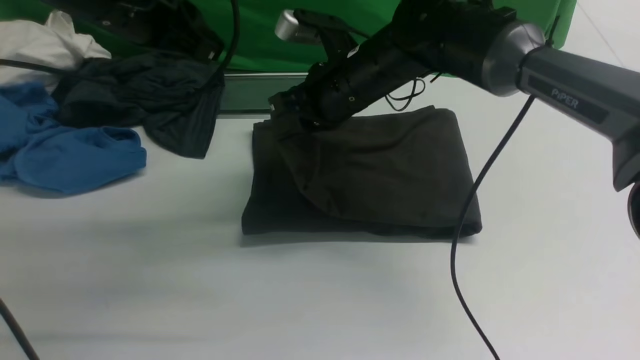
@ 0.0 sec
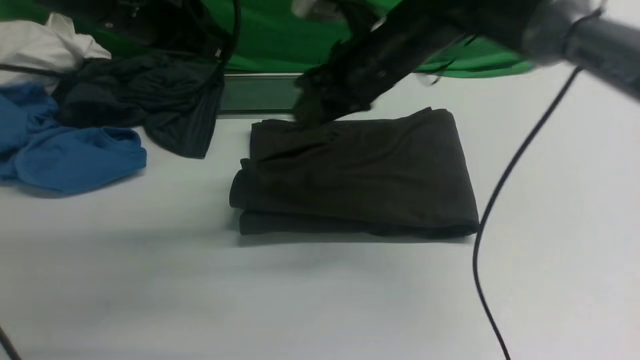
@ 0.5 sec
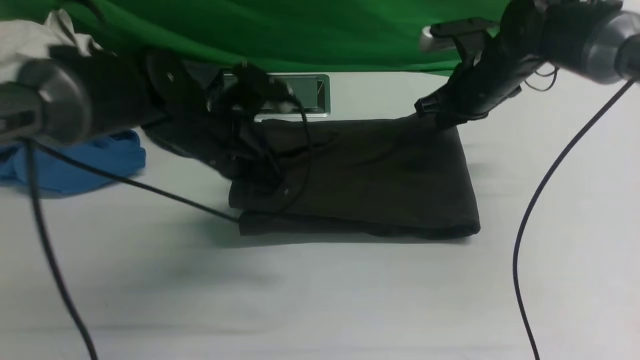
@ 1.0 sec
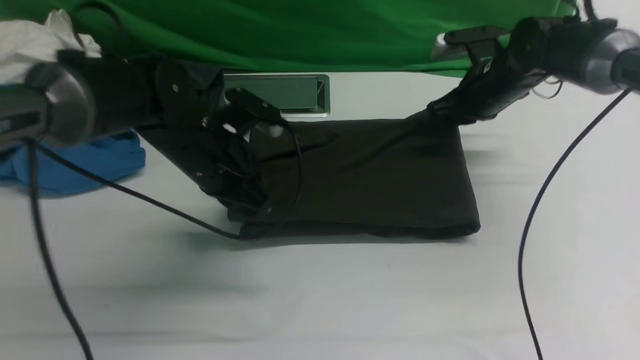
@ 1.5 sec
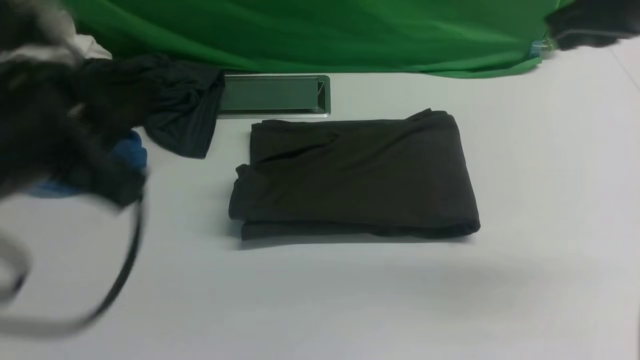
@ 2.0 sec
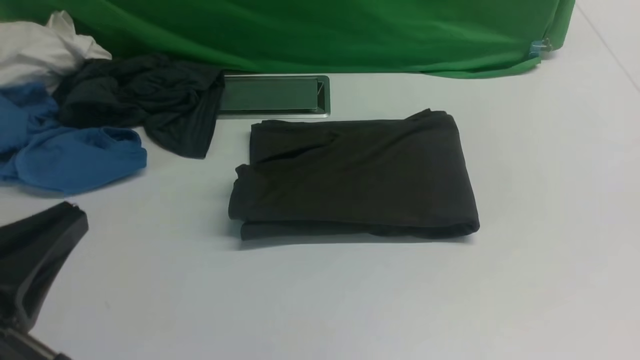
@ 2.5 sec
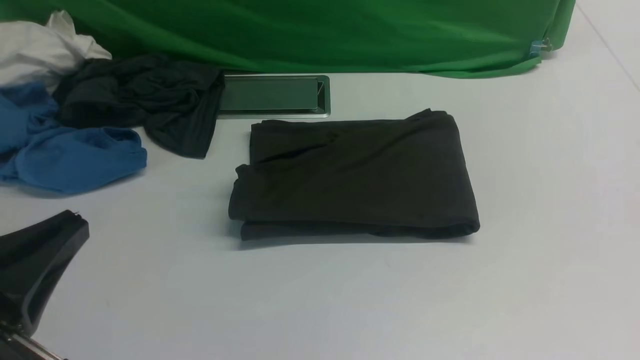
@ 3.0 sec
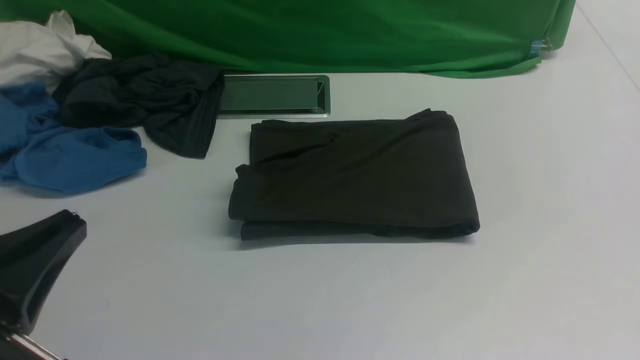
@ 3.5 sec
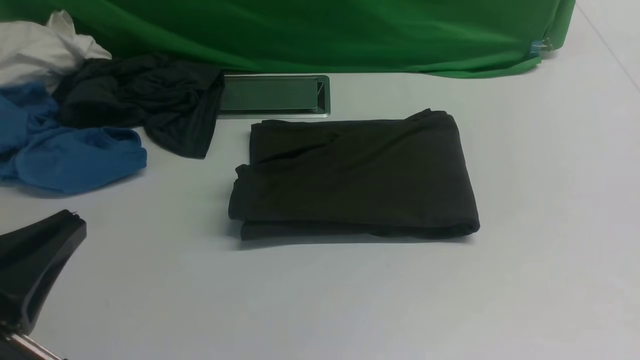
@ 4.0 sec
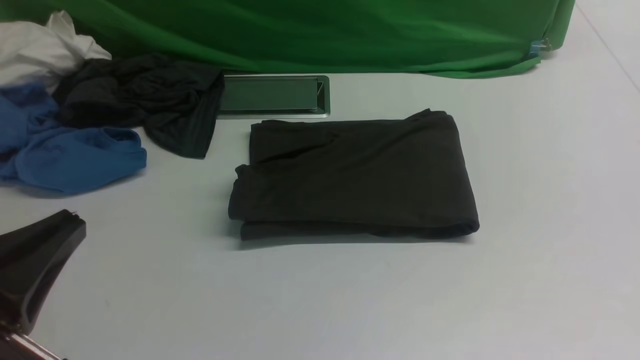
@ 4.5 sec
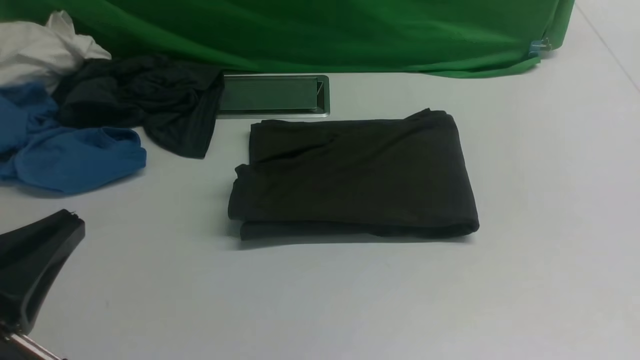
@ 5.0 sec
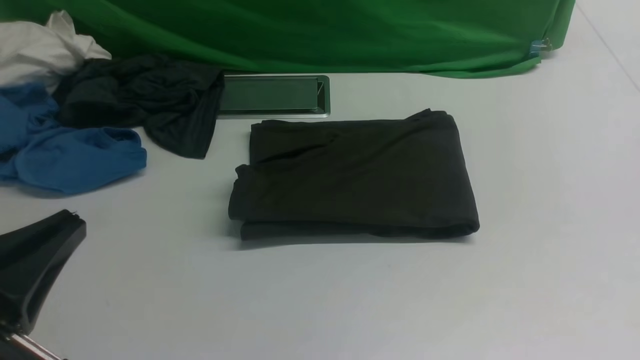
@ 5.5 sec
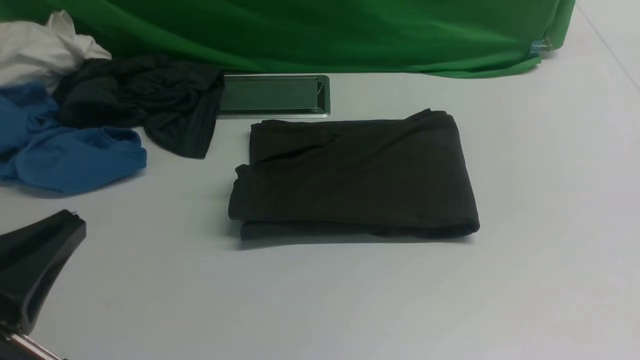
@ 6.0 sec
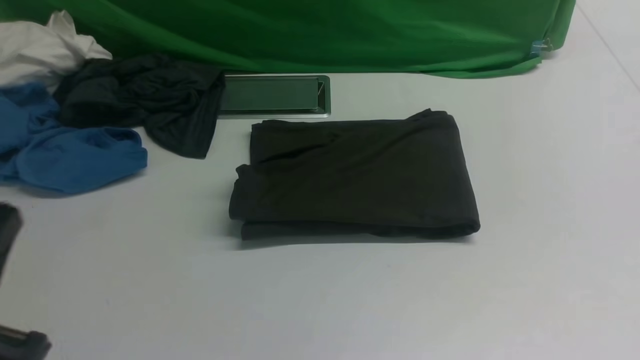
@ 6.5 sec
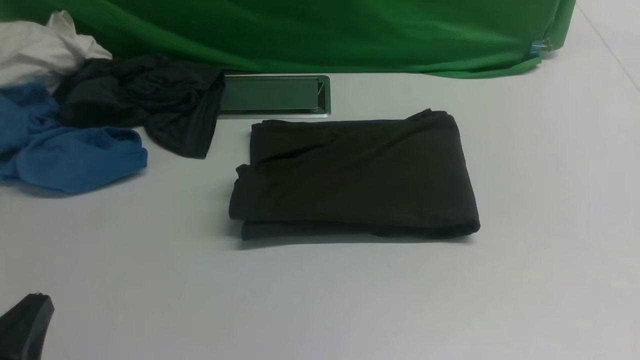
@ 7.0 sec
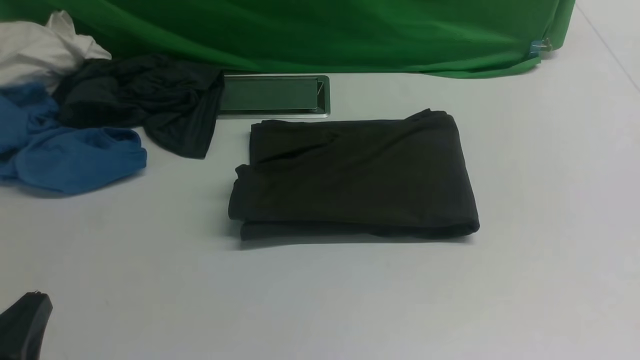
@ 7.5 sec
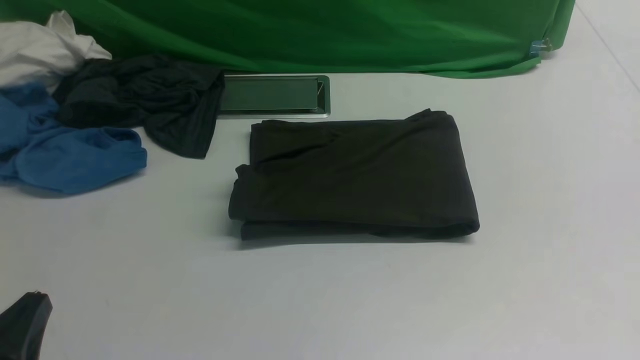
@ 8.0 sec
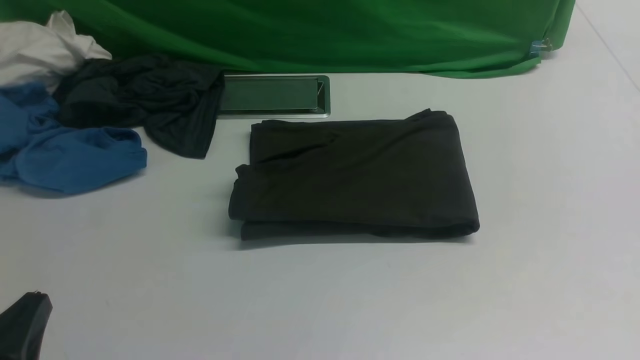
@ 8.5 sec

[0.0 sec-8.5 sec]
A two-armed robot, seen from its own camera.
0.0 sec to 2.0 sec: The right gripper travels to the right, upward and backward by about 30 cm, and closes its fingers, while the left gripper travels backward by roughly 20 cm.
2.0 sec to 4.0 sec: The right gripper heads backward, covering about 25 cm. The left gripper is displaced backward and downward by some 10 cm.
6.5 sec to 8.5 sec: The left gripper heads downward, covering about 5 cm.
